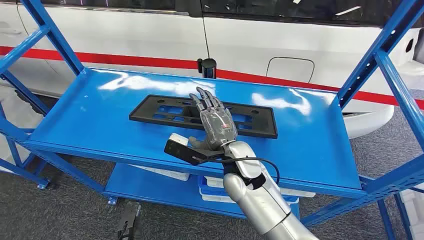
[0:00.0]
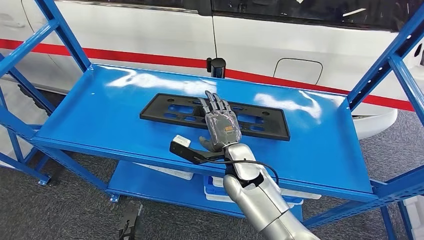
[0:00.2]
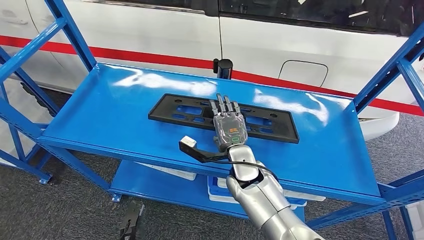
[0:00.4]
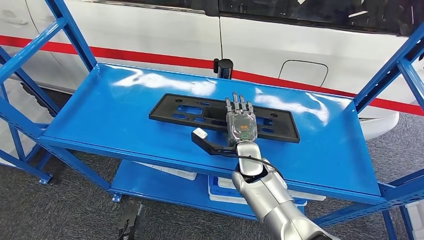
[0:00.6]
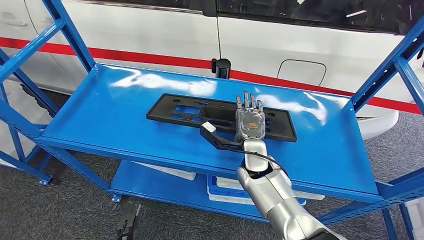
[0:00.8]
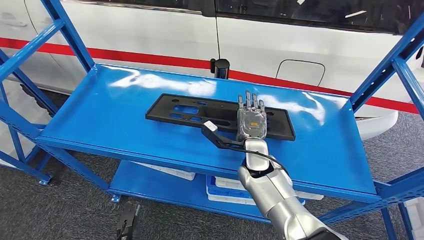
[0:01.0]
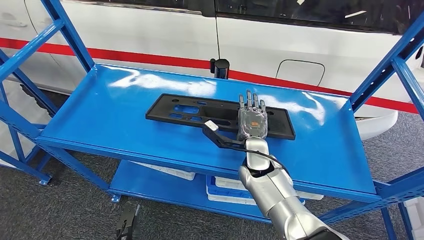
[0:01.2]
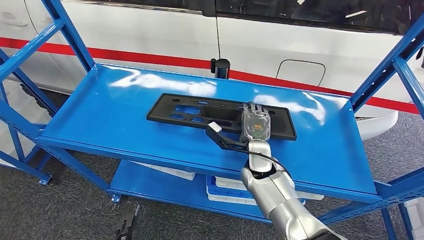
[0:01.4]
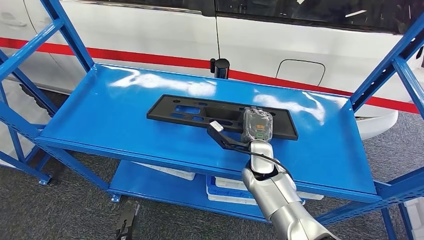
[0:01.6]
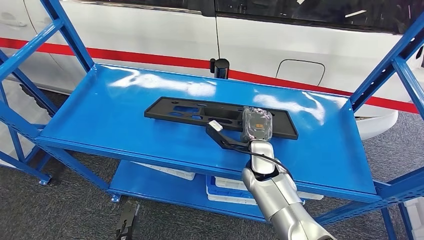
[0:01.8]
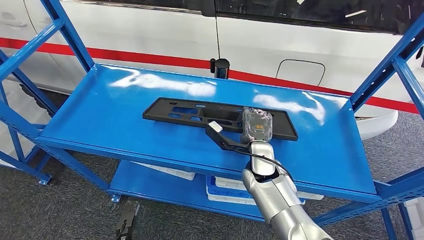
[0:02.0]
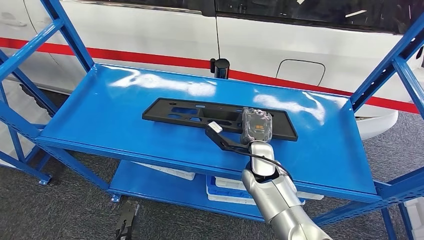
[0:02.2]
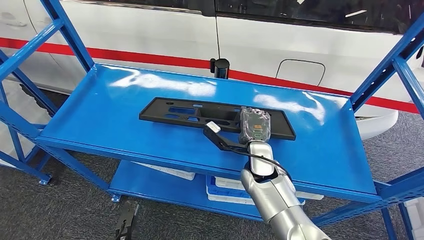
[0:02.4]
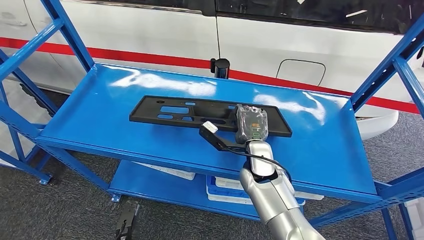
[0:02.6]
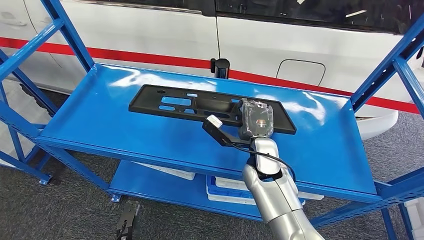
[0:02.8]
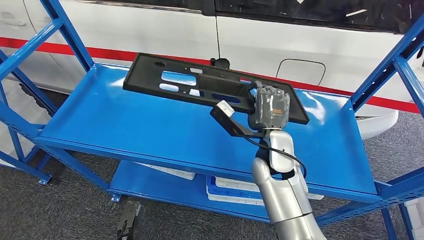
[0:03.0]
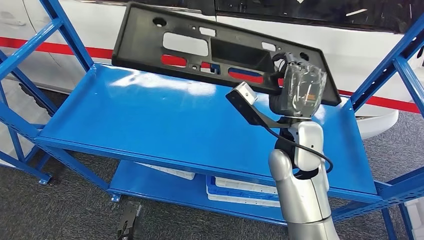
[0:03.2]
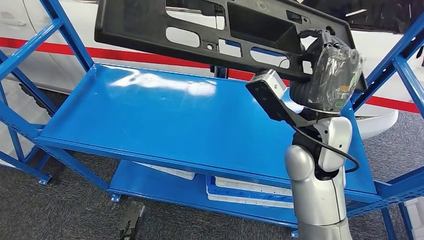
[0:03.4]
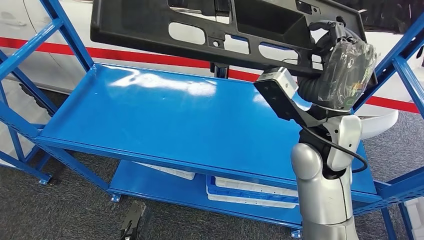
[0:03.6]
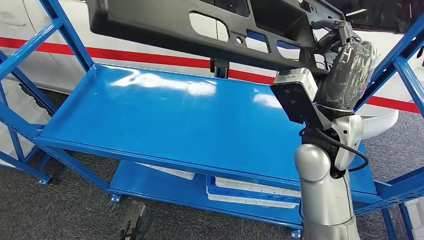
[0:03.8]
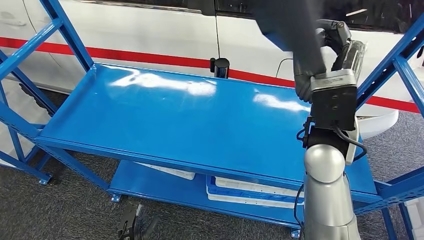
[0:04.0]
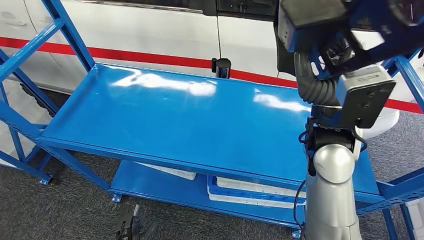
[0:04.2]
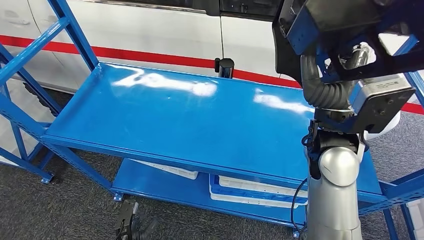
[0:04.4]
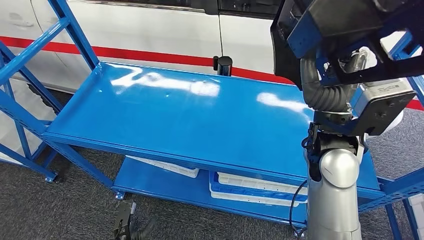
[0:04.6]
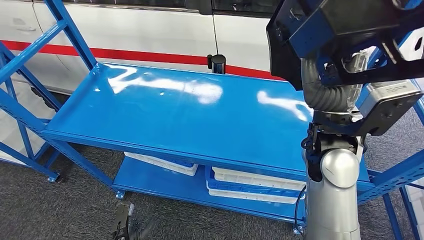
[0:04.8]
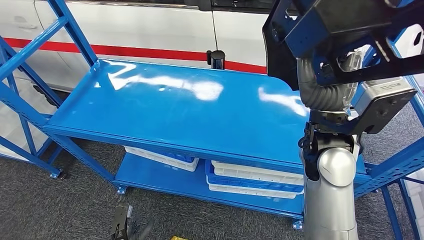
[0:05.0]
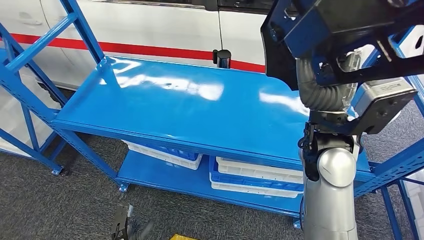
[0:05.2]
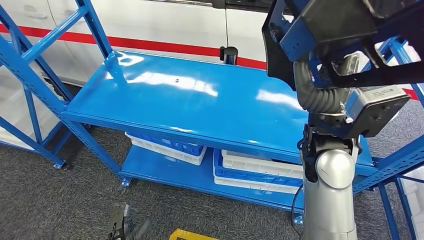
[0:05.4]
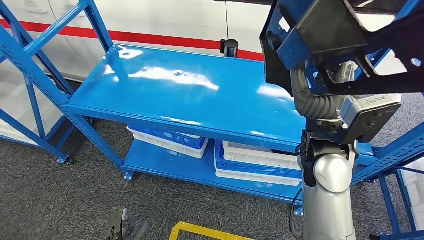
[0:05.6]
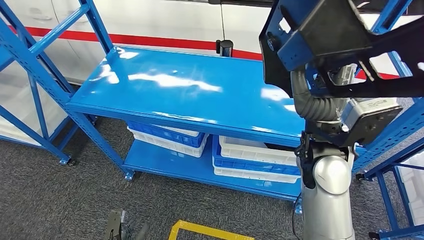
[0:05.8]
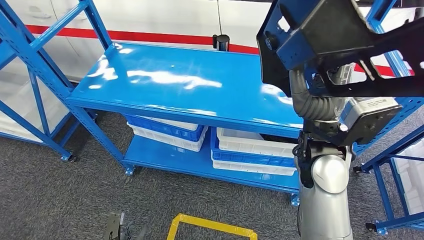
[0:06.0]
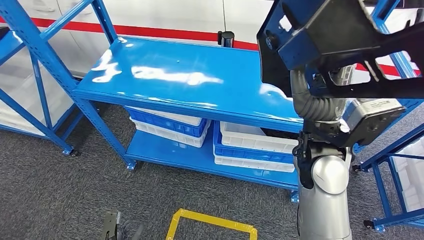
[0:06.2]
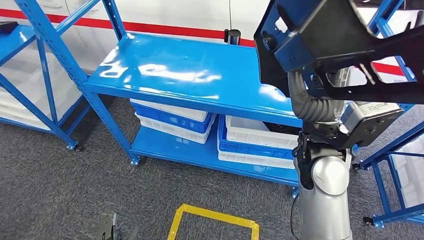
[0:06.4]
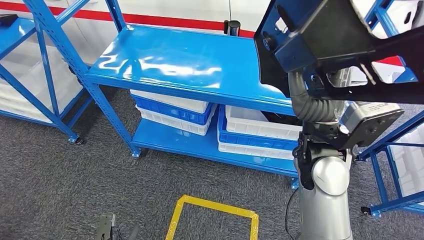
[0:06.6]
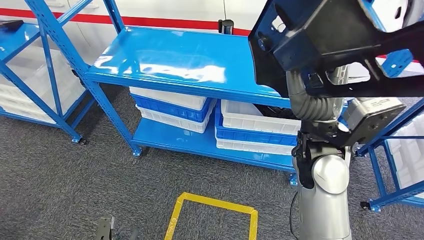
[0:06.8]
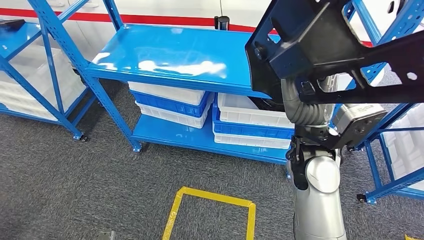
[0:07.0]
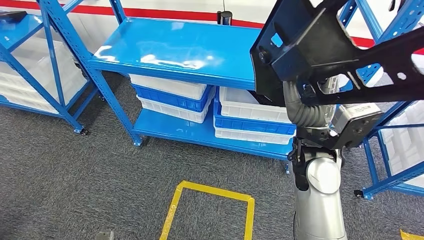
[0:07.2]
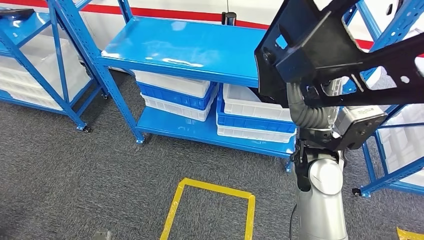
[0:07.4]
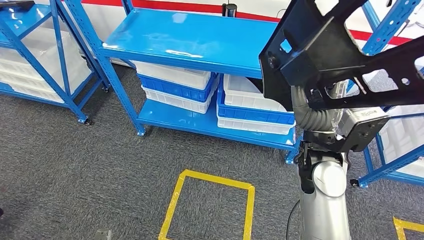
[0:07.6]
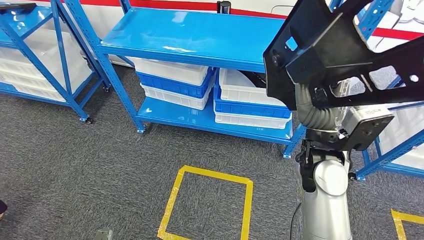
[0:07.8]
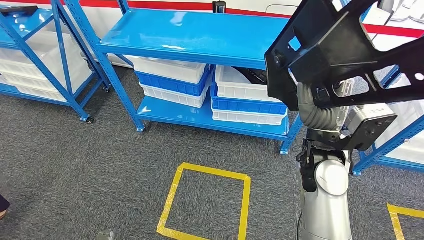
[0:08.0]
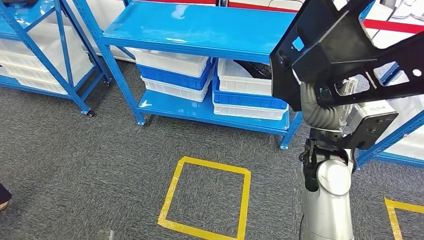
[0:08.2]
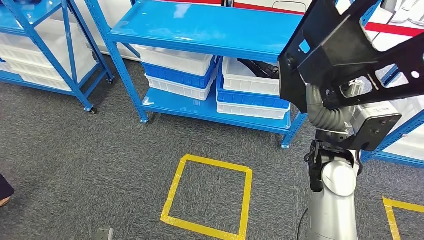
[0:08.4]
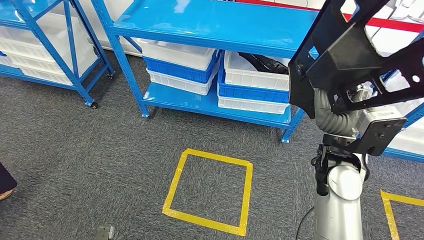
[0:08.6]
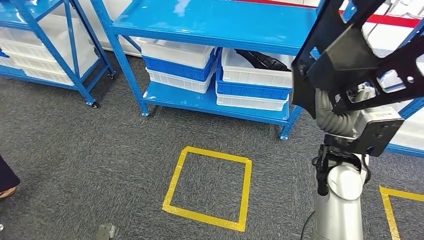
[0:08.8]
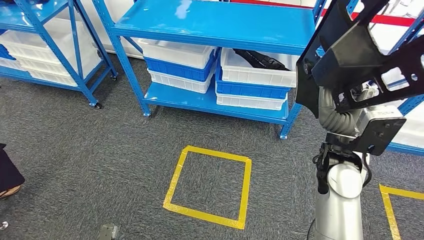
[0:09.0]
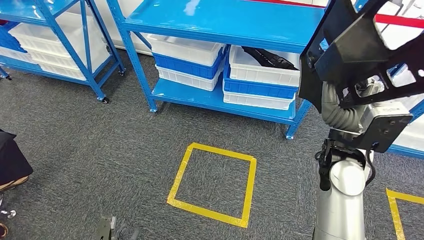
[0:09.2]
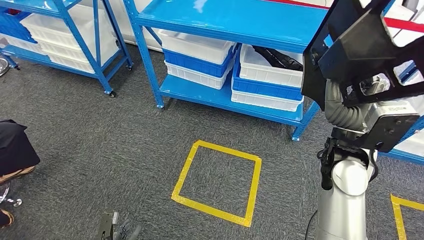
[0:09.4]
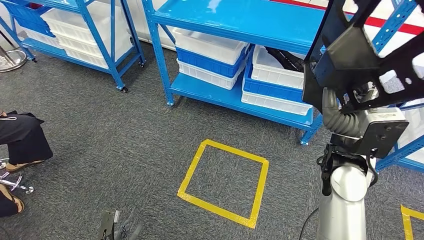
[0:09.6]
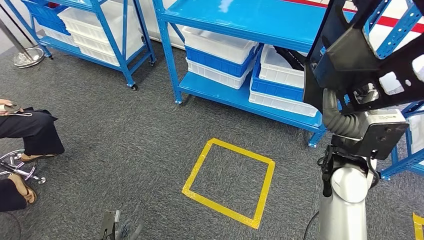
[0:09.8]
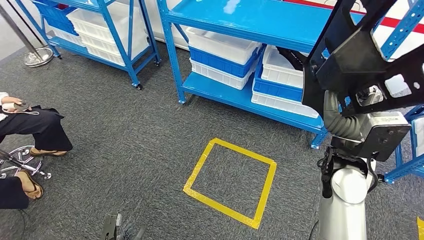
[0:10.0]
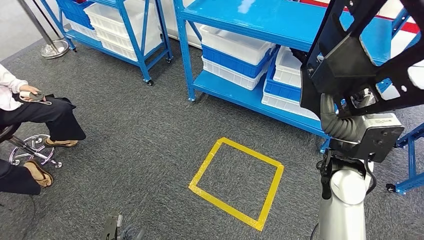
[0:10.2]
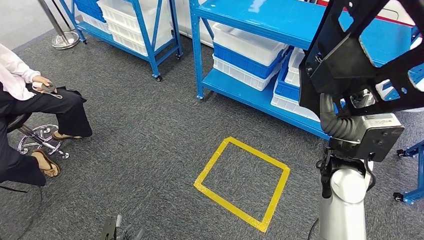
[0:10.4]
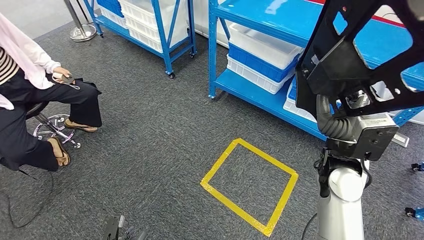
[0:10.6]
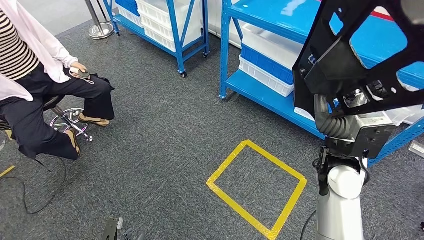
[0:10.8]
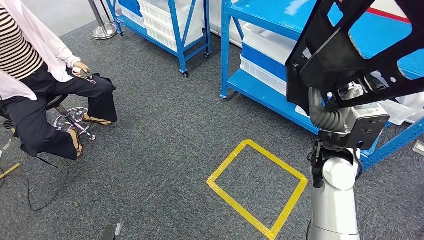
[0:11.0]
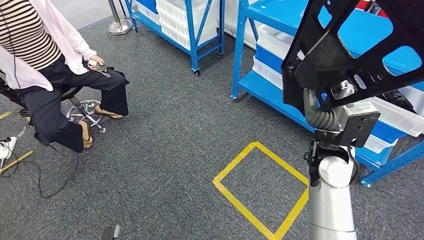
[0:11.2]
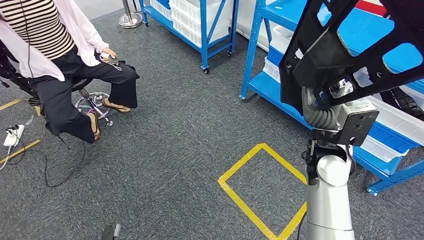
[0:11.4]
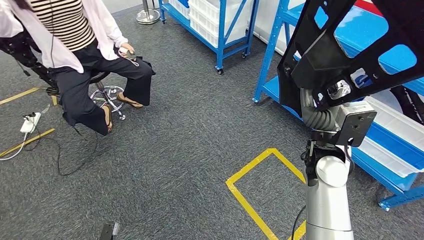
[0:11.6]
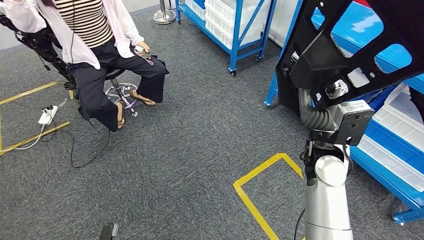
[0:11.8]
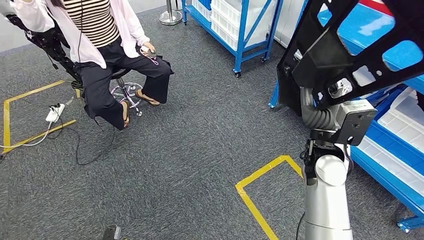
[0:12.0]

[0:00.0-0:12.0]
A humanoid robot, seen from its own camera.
Step, 0:00.0 to 0:05.0: Pick up the large material from the shelf.
0:01.6 to 0:03.0: The right hand shifts roughly 10 cm upward.

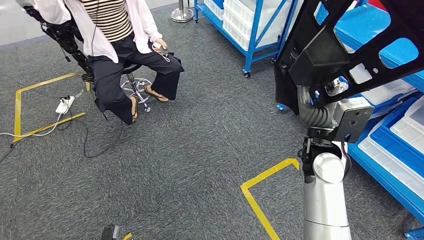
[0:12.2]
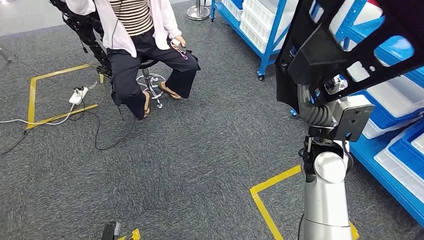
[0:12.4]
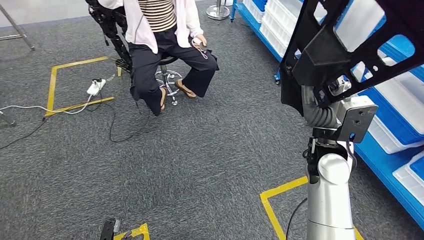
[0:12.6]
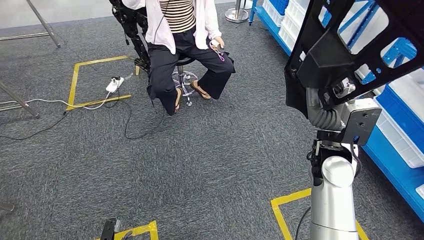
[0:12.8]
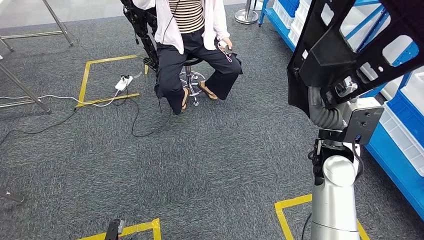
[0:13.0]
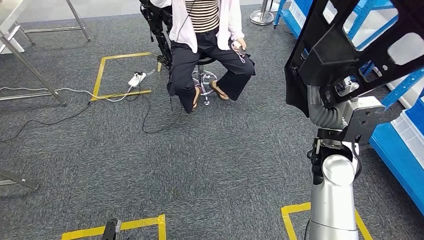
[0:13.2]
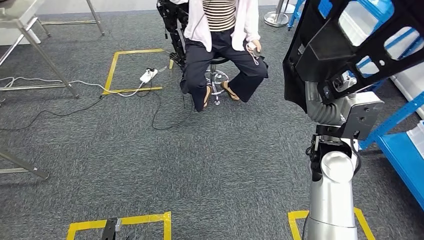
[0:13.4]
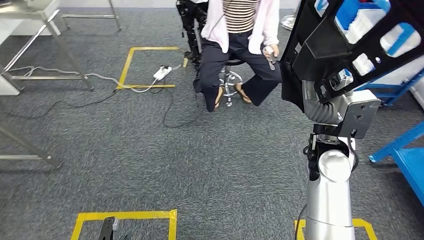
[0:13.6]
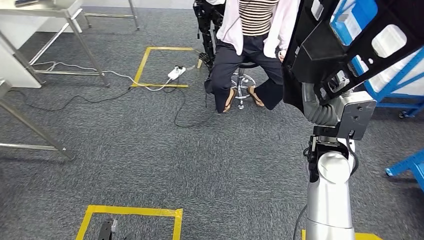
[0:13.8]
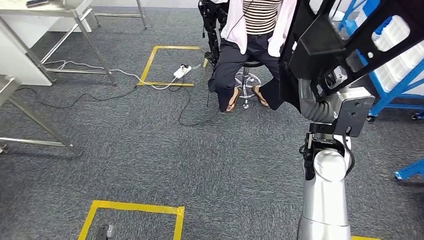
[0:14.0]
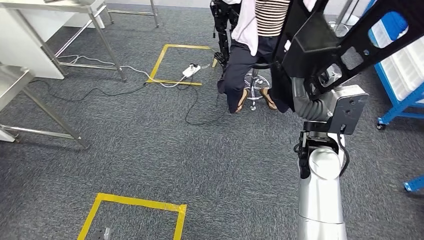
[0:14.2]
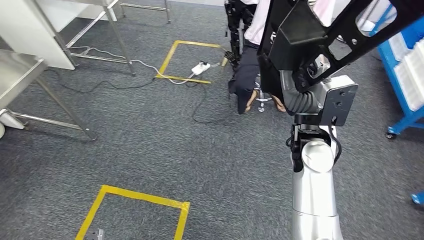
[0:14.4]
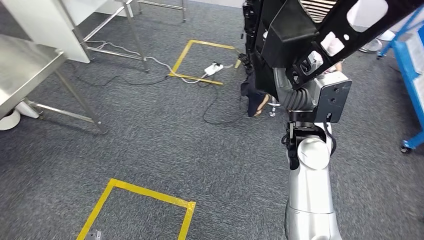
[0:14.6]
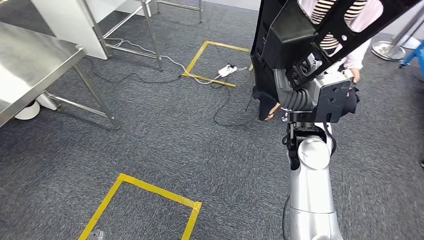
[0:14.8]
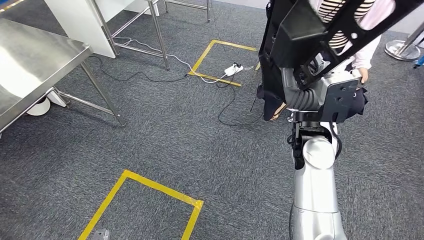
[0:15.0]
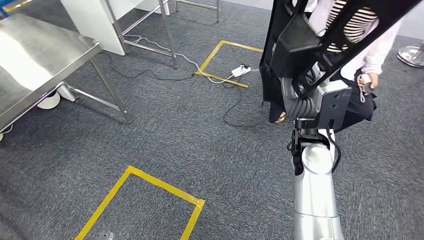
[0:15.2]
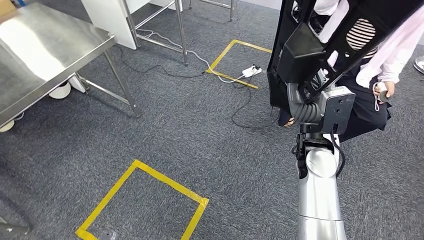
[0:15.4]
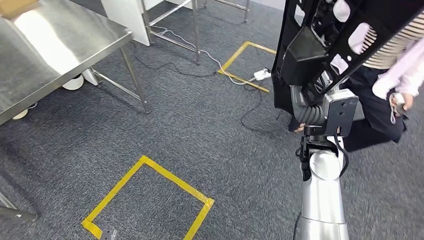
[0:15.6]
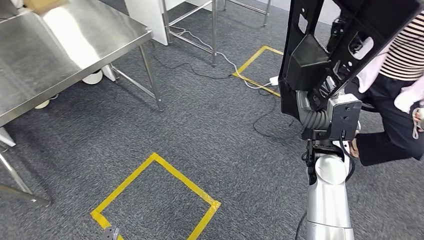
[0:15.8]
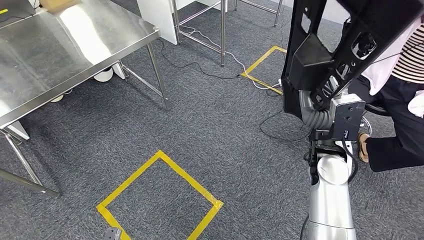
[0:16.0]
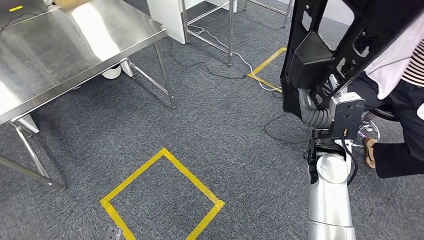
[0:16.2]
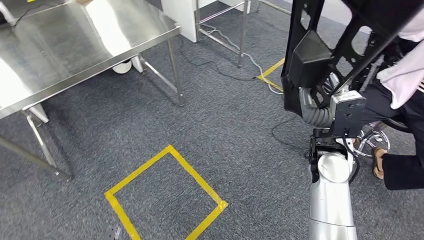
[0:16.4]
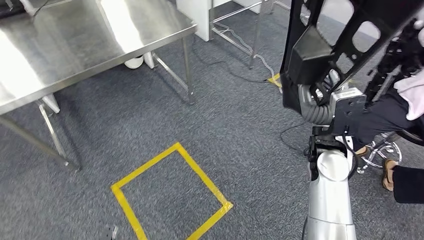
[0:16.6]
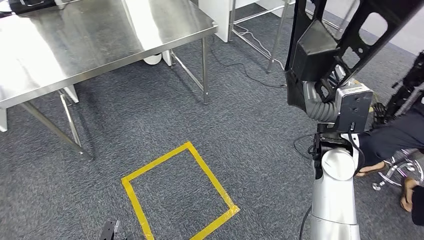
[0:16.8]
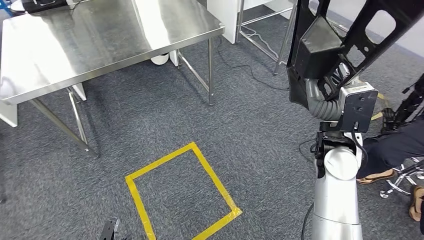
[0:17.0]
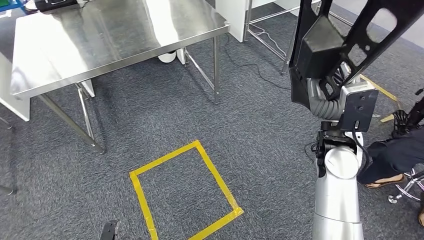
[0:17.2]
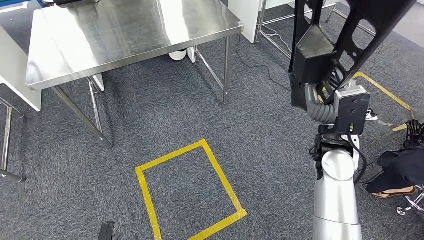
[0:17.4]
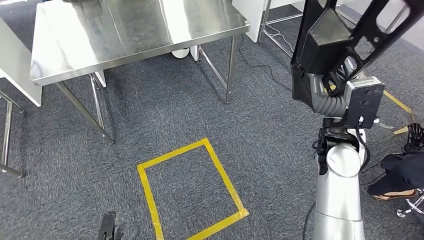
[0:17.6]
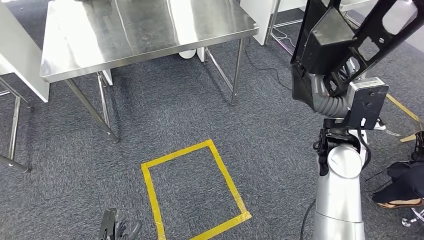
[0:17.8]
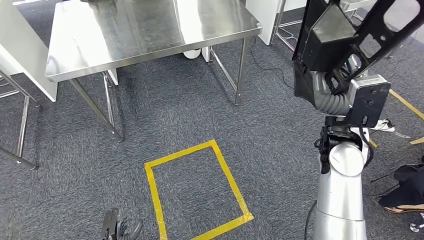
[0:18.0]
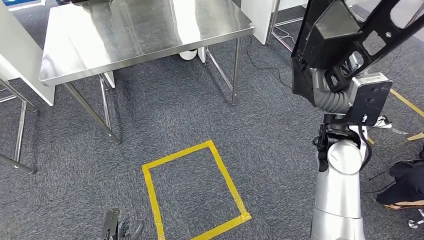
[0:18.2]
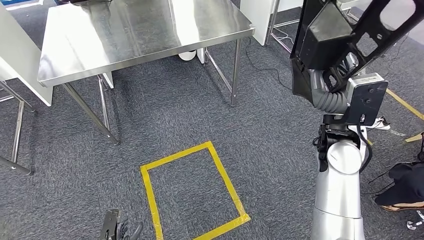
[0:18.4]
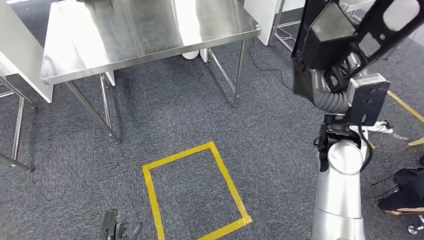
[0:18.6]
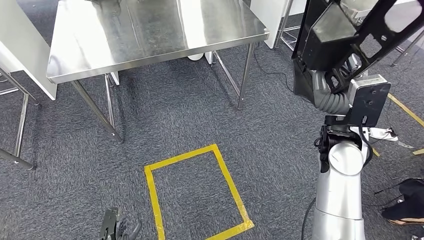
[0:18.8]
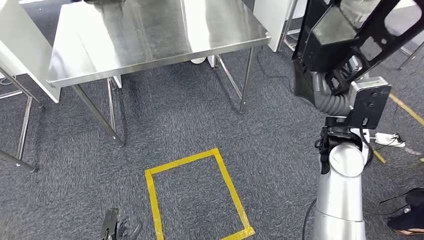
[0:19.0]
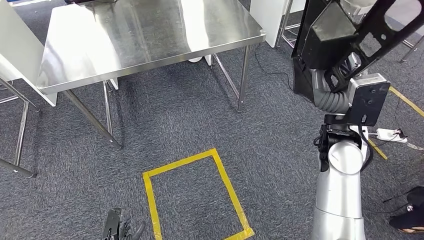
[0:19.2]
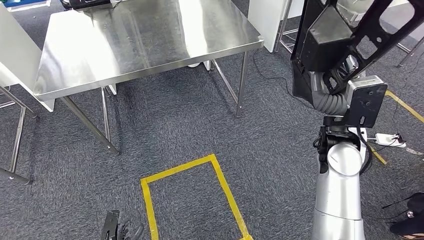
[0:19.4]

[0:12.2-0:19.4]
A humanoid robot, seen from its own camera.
Step, 0:12.2 to 0:18.0: Move the large material to the workbench.
